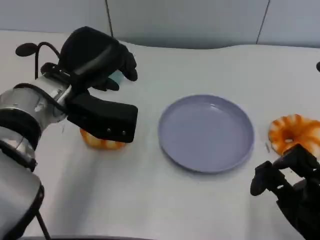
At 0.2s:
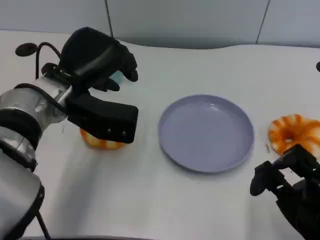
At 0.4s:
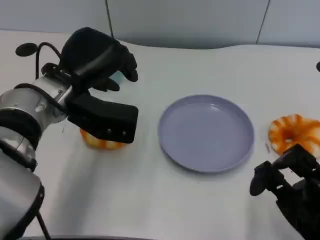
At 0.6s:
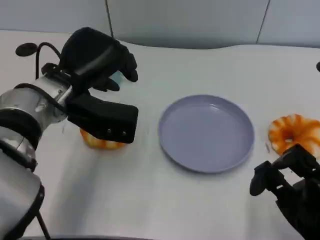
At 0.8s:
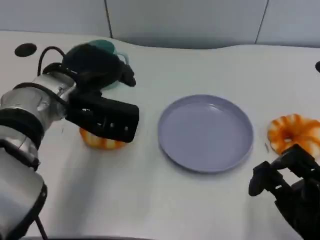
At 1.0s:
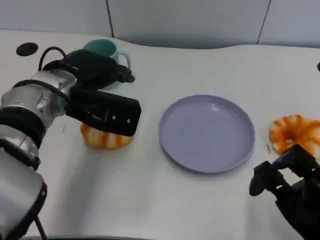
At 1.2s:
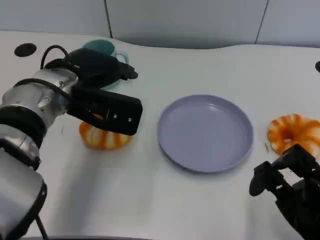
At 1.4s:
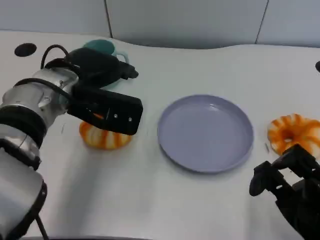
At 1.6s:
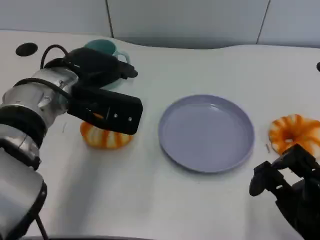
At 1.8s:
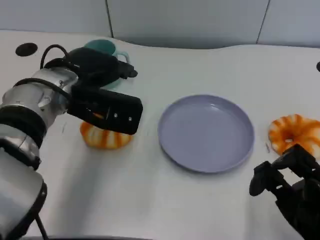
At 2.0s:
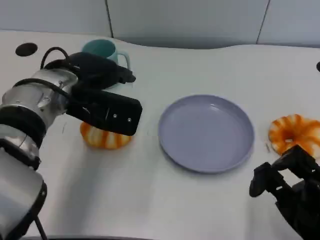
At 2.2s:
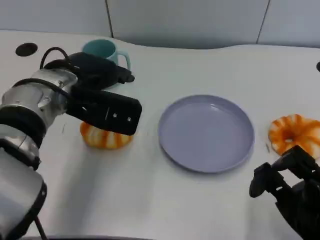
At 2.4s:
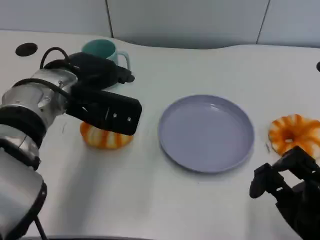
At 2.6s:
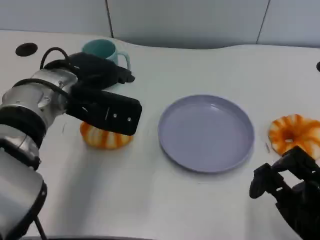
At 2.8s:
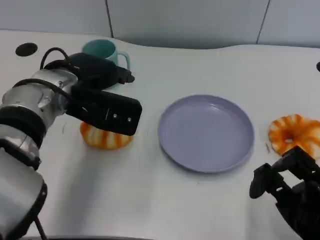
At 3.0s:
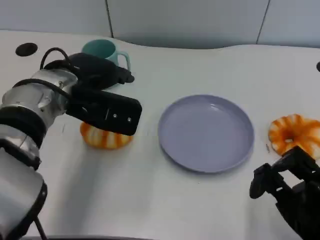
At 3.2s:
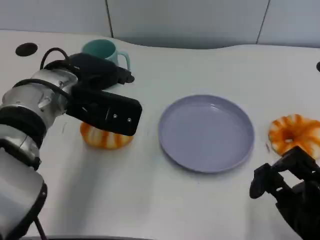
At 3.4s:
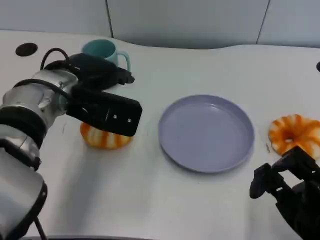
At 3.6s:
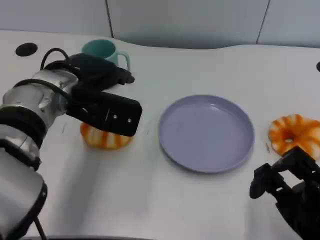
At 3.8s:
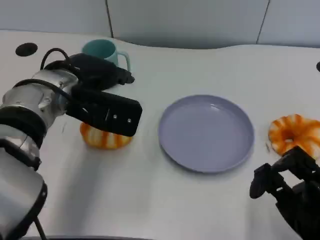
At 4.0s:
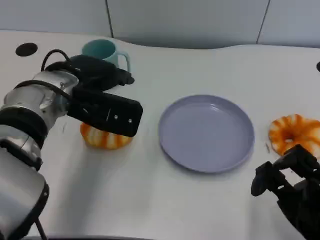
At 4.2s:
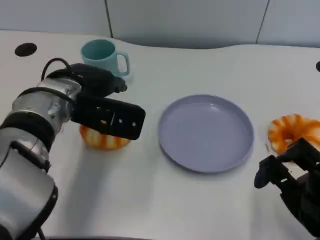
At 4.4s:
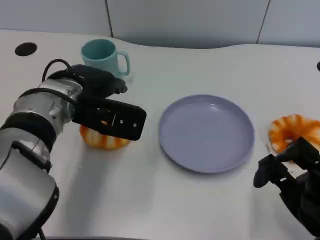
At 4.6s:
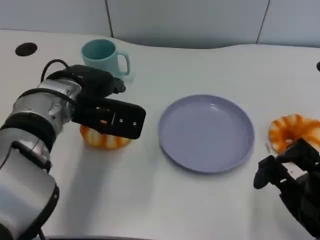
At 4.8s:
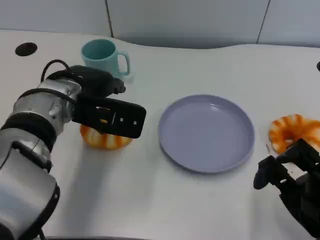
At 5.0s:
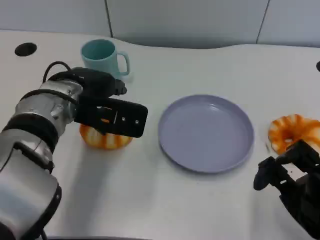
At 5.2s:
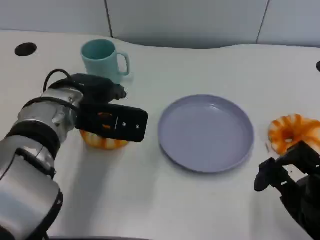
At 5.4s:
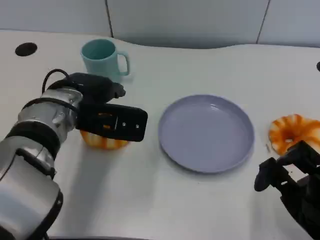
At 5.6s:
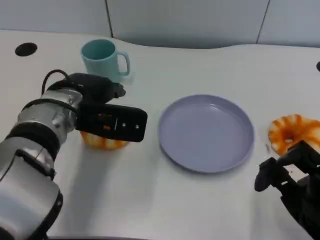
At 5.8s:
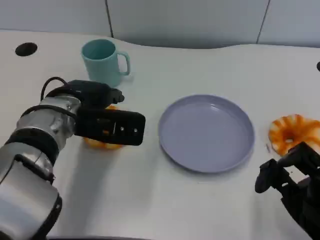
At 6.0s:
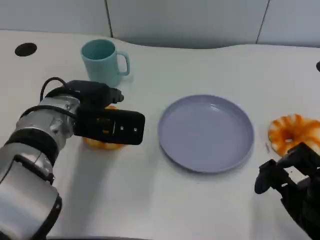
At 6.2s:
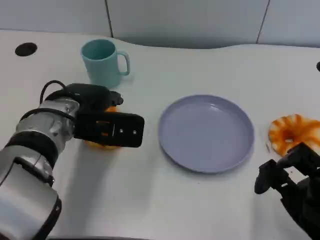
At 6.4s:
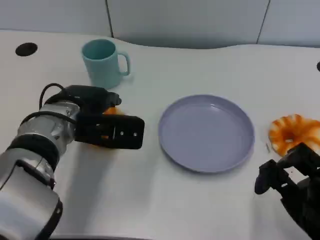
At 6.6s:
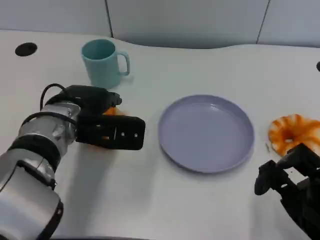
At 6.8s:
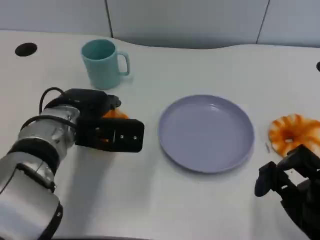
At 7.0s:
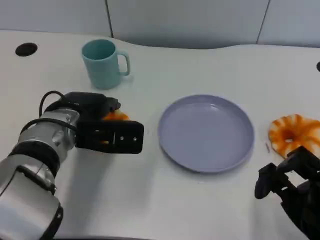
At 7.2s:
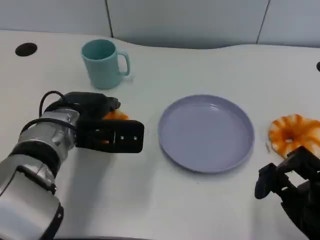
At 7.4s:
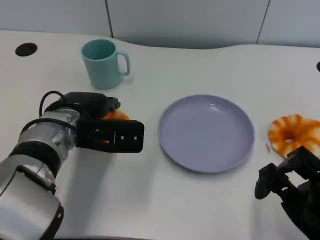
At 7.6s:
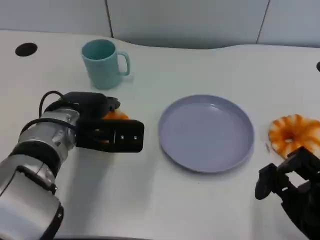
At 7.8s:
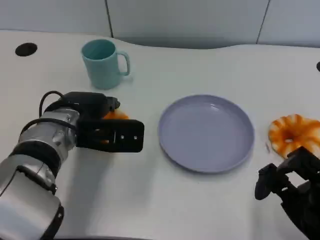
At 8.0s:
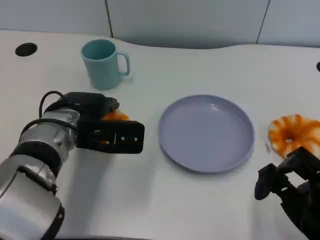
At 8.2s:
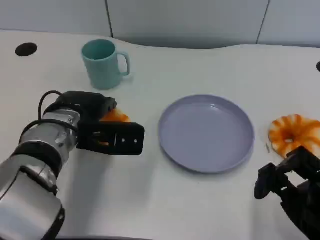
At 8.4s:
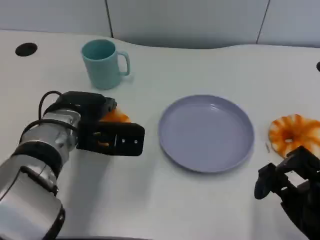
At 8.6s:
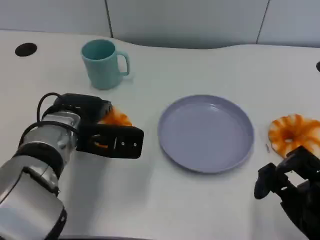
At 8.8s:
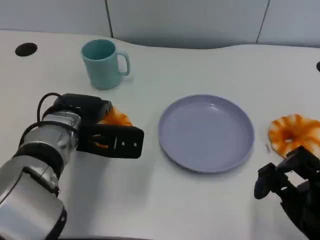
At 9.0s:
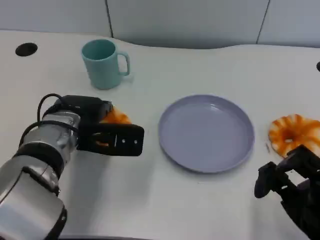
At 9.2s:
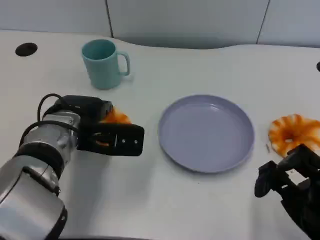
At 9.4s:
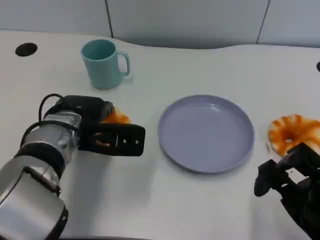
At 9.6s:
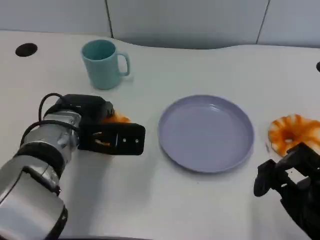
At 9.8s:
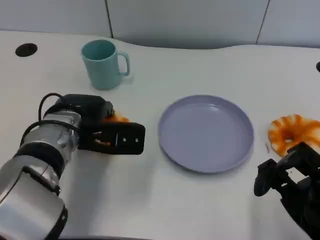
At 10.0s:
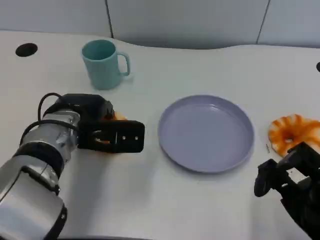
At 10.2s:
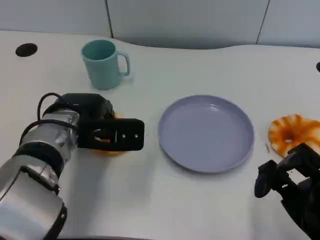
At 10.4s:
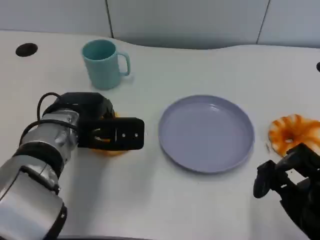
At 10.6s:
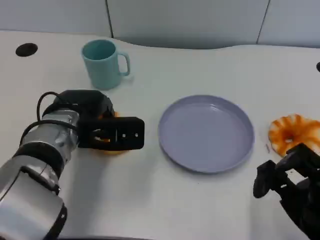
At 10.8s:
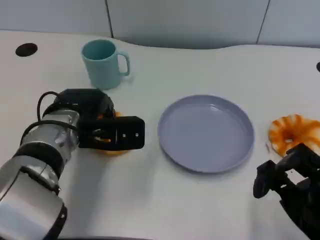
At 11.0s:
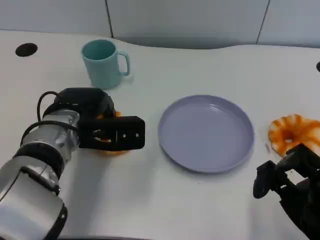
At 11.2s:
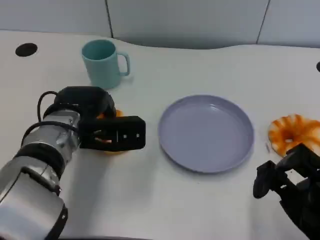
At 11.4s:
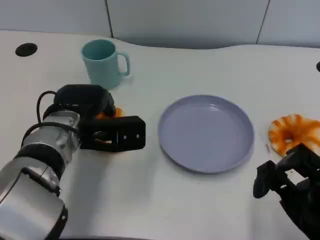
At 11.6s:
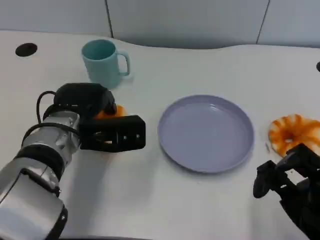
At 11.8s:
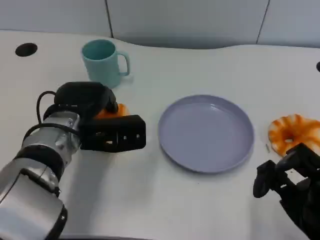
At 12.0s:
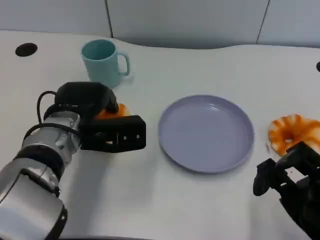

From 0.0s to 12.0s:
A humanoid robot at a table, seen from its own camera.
Task of the whole recording: Grasp the bread from the table and place it into the plate.
From 1.6s to 3.0s: Both hands stay about where they are.
From 3.0s to 6.0s: The hands stay close to where they were, moving slightly.
From 6.0s to 12.0s: The hands move only a little.

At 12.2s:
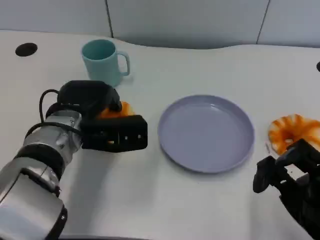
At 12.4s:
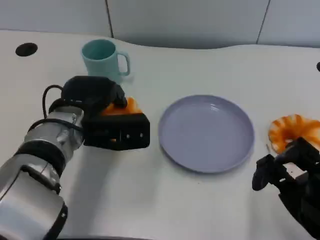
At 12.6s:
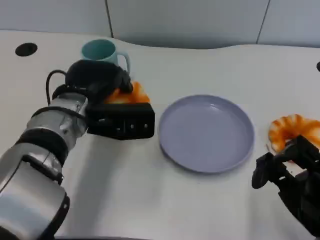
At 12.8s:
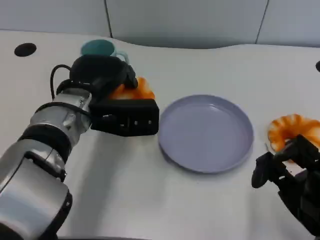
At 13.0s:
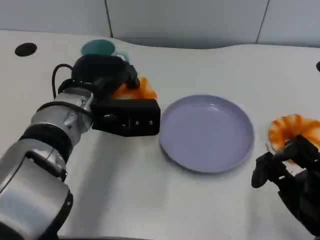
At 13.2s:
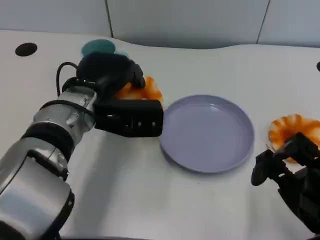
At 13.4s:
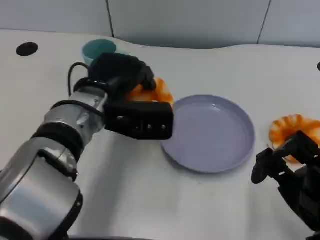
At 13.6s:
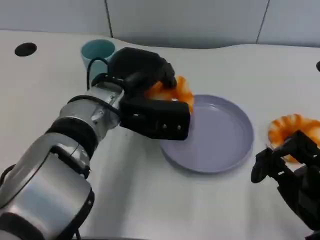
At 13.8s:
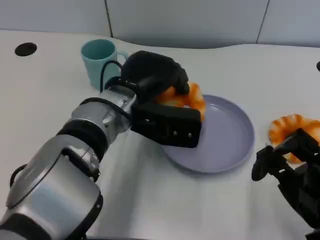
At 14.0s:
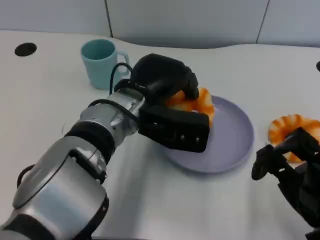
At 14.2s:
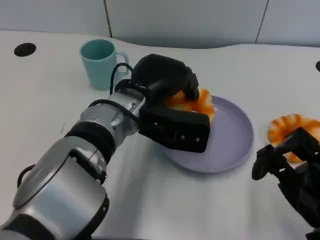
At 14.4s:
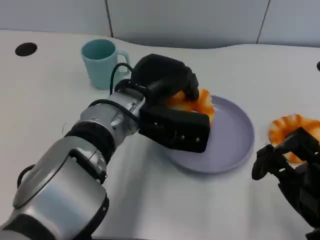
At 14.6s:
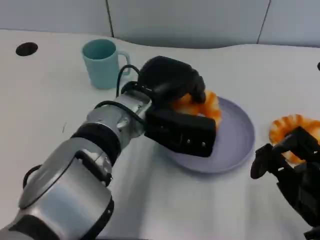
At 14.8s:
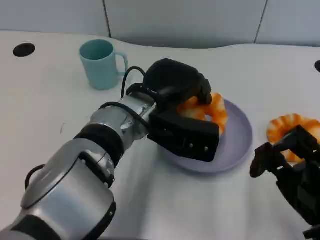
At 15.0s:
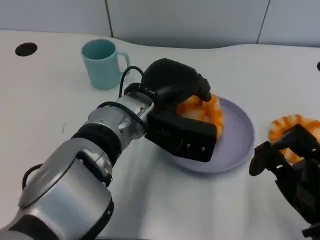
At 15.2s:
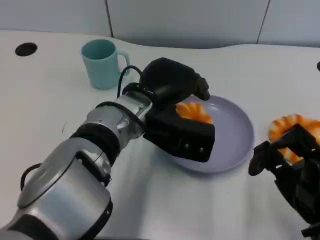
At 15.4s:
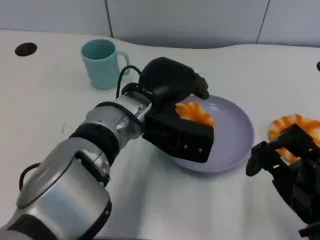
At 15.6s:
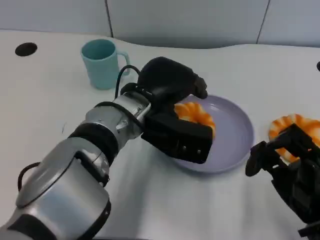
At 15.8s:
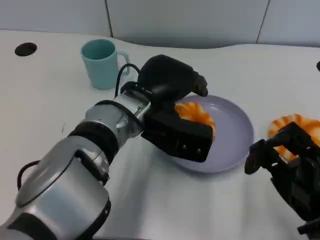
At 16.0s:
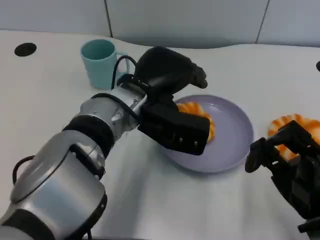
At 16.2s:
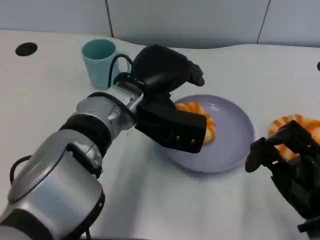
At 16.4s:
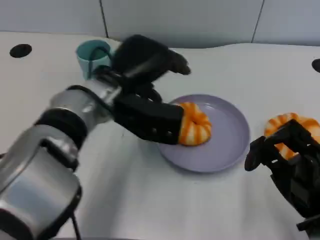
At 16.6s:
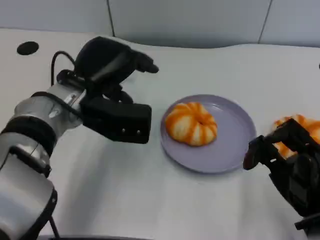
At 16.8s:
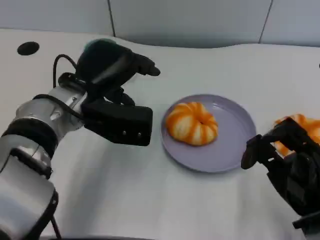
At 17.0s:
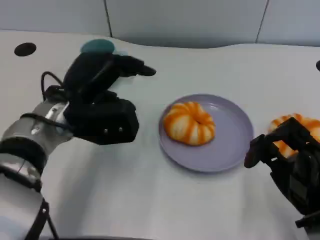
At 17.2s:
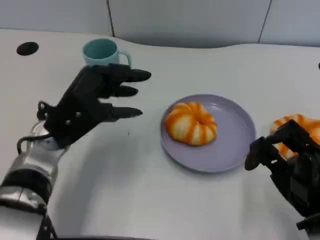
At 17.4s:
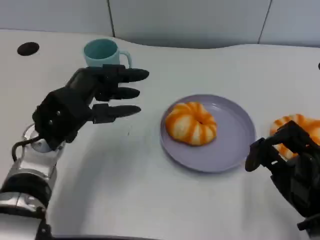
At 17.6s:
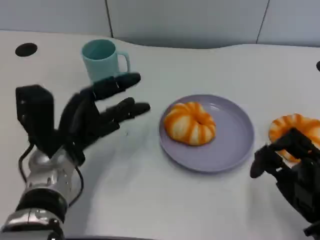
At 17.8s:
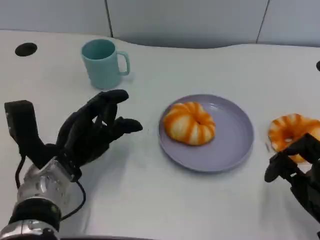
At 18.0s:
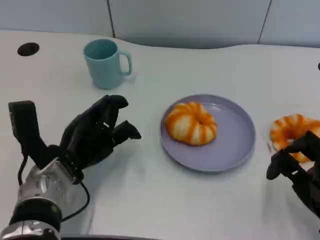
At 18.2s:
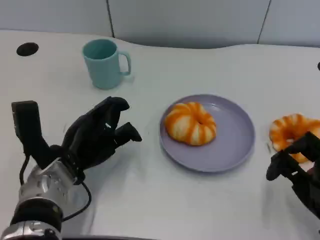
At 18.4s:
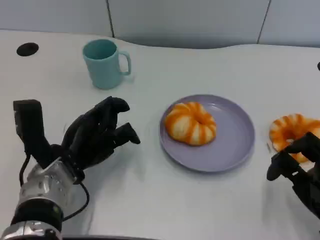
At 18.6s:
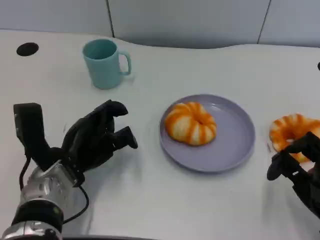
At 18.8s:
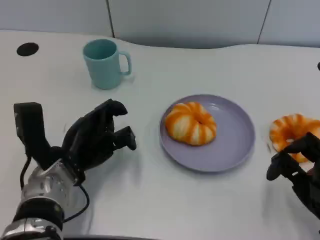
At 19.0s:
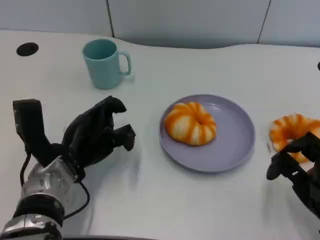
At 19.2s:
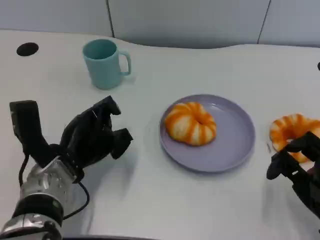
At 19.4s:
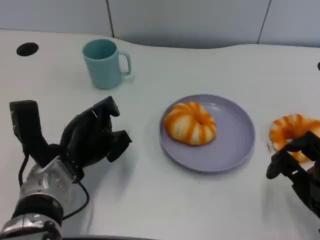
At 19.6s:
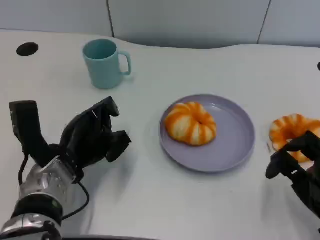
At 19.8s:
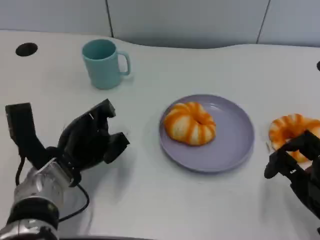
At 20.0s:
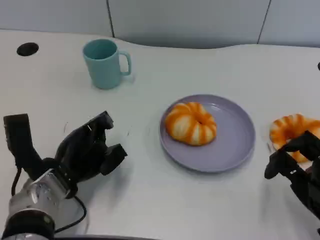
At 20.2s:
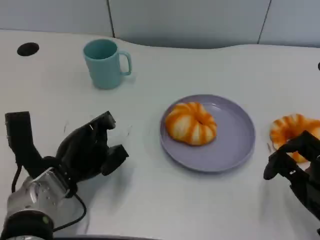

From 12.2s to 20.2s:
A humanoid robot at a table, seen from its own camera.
Task of the whole recording: Grasp the bread from the table and place it into the plate.
From 12.2s to 13.8s: The left hand is displaced to the right by roughly 10 cm.
From 13.8s to 15.4s: The hands move only a little.
From 15.4s to 17.0s: The left hand shifts roughly 10 cm to the left.
From 17.0s to 18.6s: The left hand travels downward by roughly 10 cm.
From 18.6s to 20.2s: The hands stay close to where they were, moving slightly.

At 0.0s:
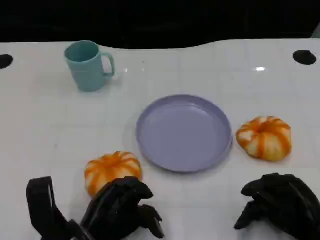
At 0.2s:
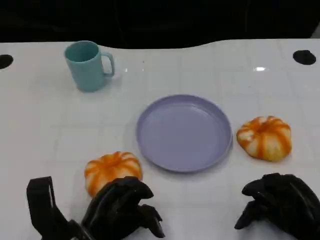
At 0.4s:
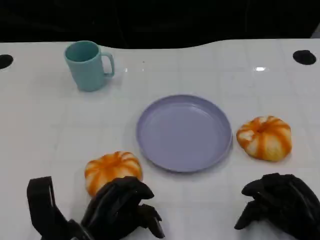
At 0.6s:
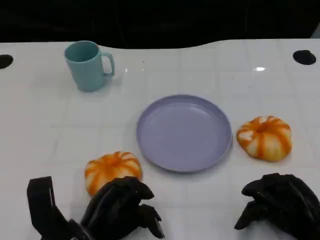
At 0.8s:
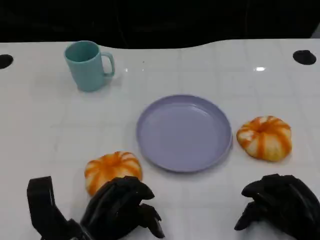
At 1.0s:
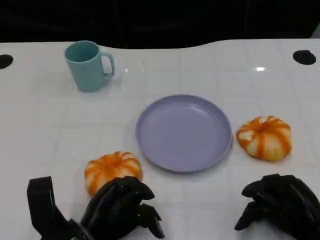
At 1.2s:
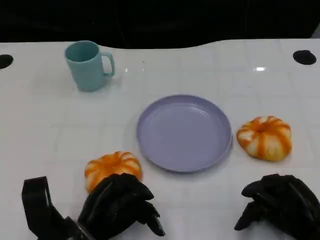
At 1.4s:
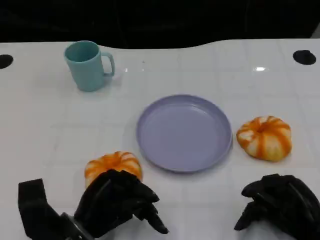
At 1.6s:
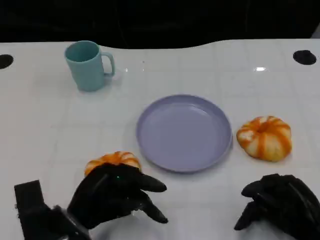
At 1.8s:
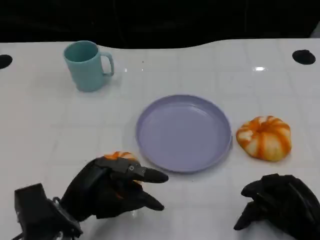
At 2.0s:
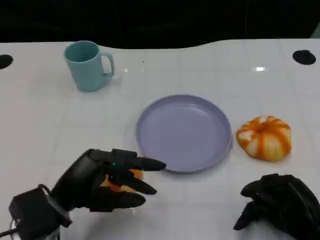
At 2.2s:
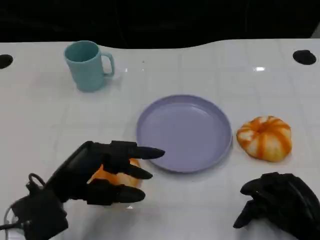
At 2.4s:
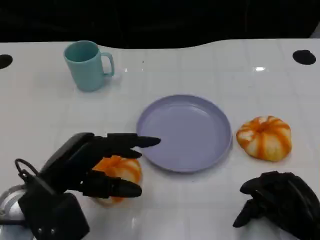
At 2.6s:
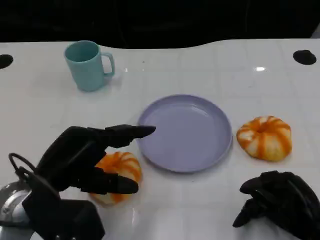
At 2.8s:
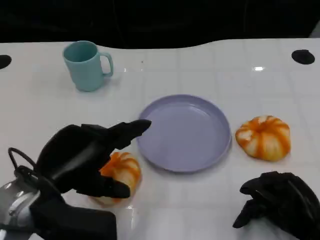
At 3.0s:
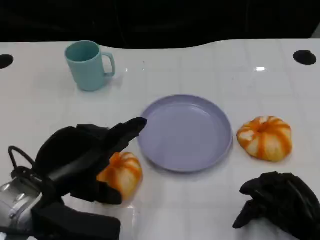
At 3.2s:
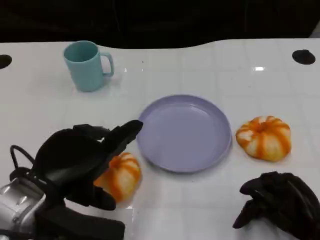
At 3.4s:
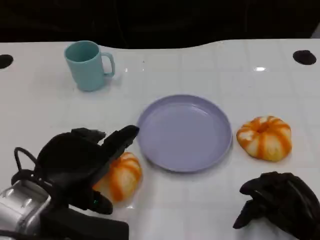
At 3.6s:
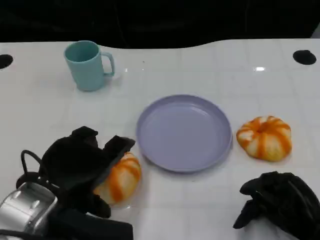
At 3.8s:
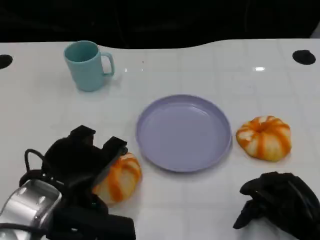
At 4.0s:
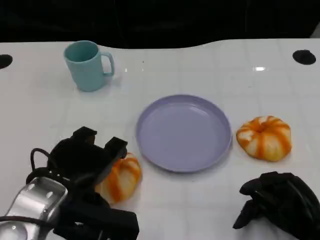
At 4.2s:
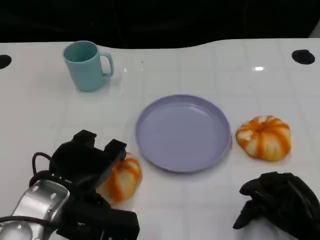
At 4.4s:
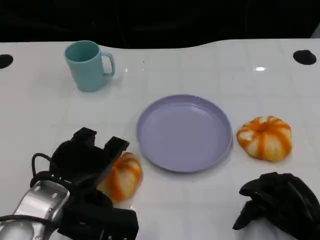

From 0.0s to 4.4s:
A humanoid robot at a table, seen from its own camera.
Task of the whole recording: Grasp the bread from the table and place it into the plate.
From 1.4s to 3.0s: The left hand moves upward, approximately 10 cm.
From 3.0s to 4.4s: The left hand changes place by about 5 cm.
